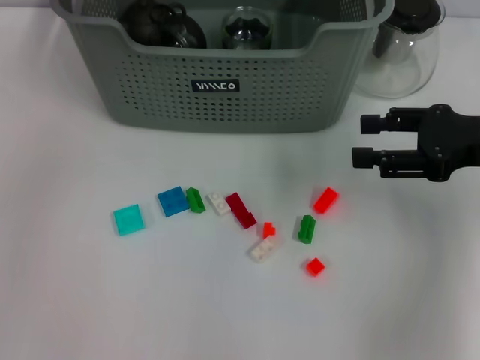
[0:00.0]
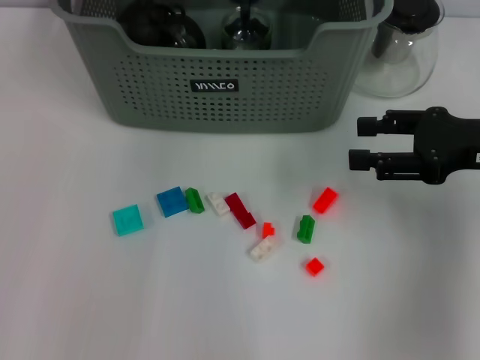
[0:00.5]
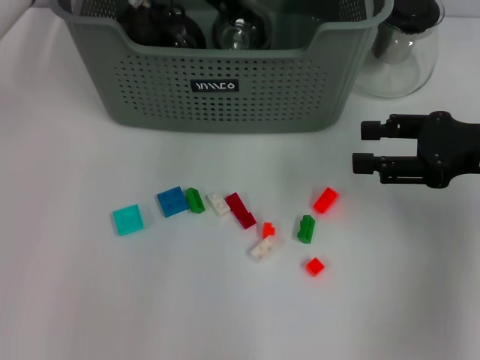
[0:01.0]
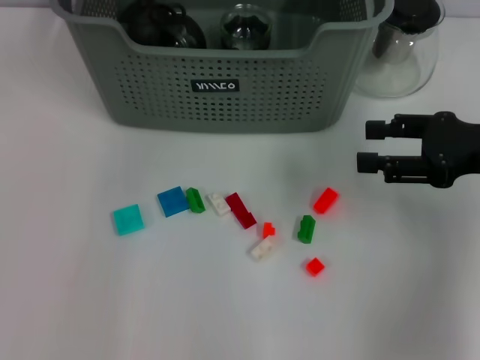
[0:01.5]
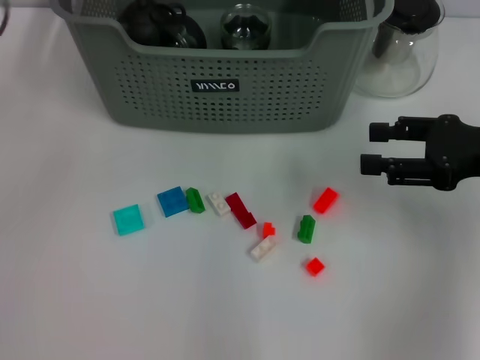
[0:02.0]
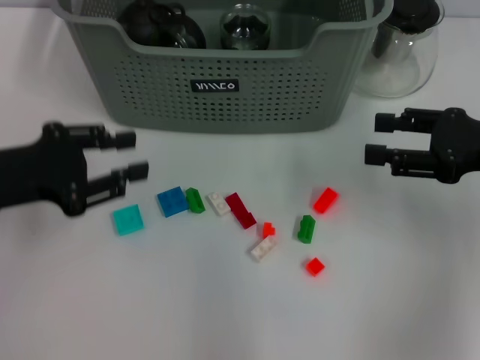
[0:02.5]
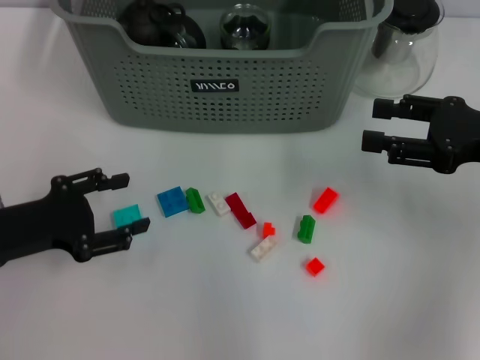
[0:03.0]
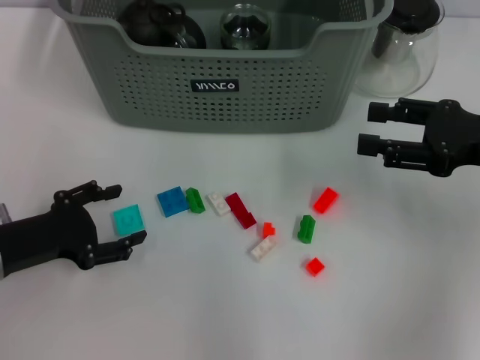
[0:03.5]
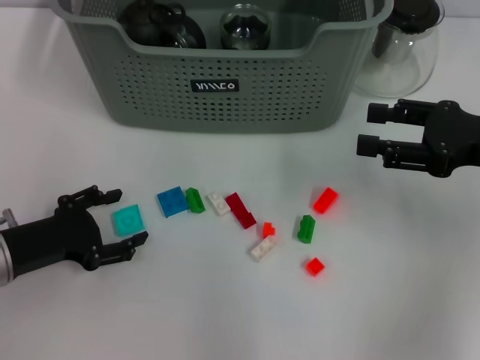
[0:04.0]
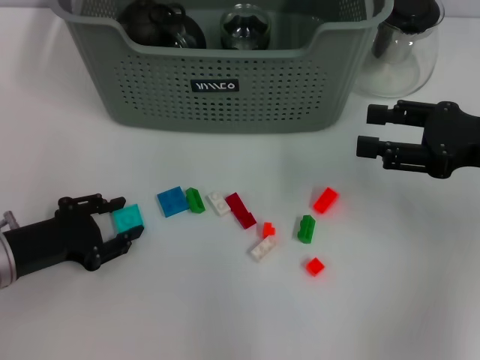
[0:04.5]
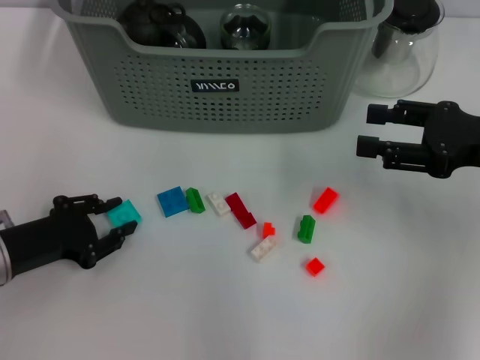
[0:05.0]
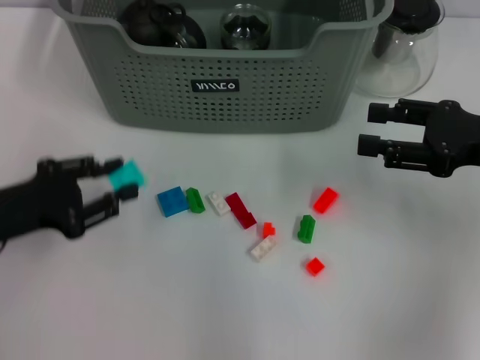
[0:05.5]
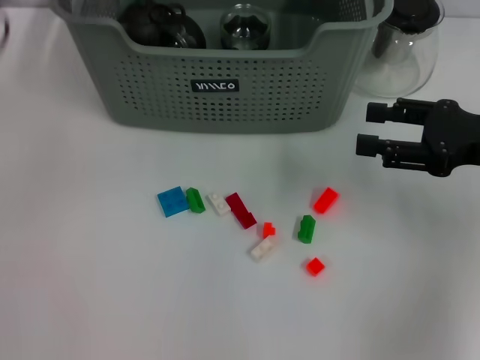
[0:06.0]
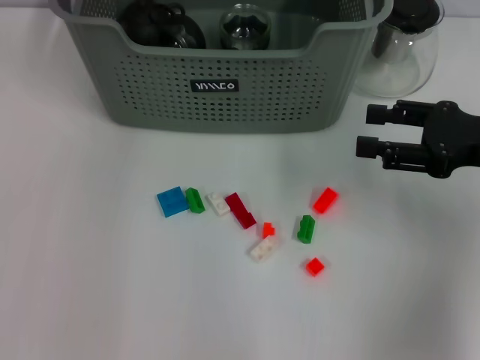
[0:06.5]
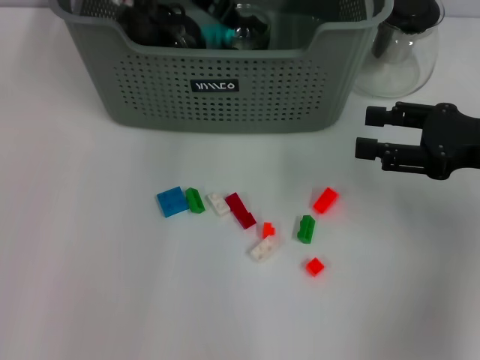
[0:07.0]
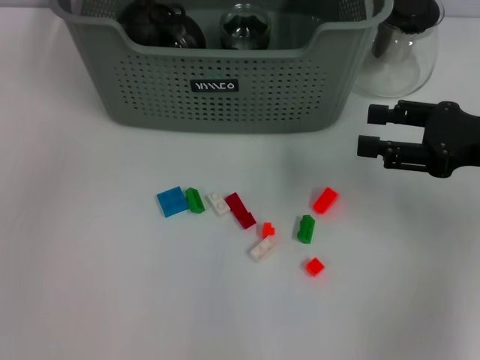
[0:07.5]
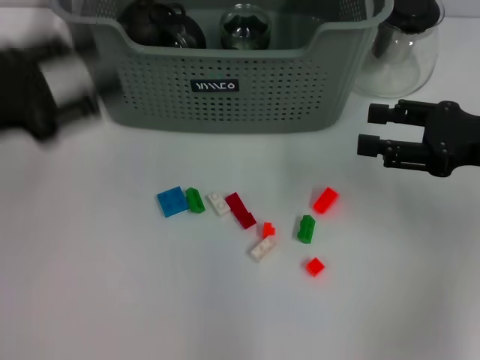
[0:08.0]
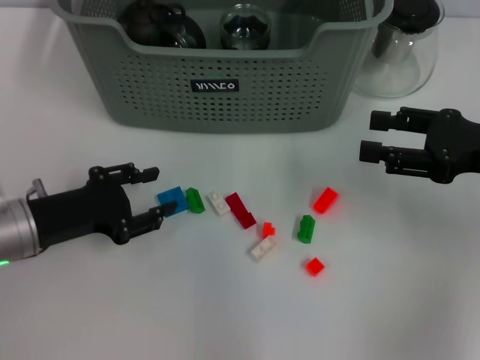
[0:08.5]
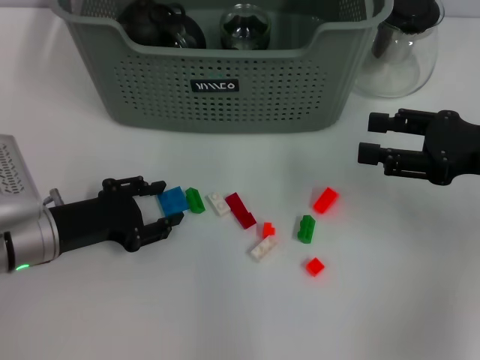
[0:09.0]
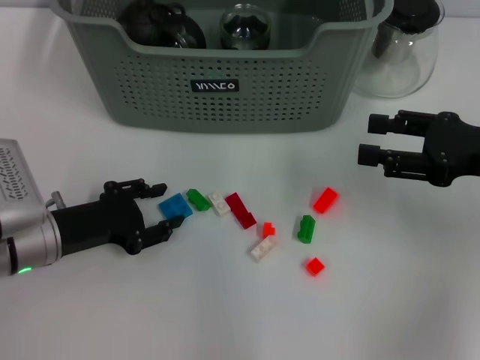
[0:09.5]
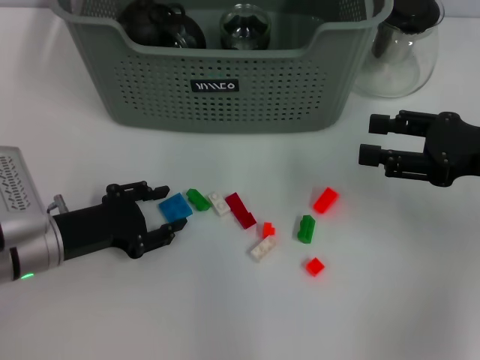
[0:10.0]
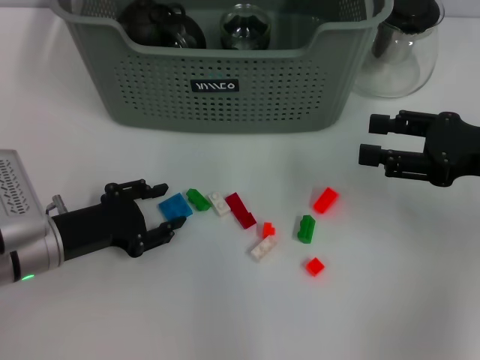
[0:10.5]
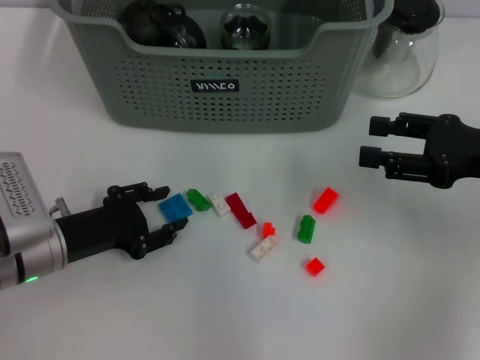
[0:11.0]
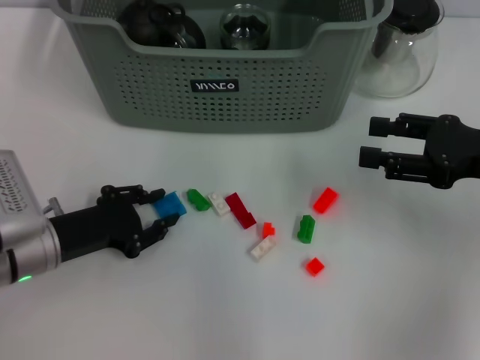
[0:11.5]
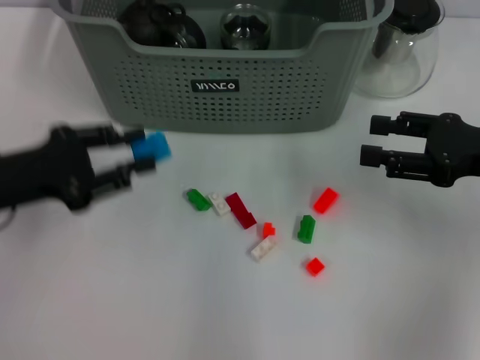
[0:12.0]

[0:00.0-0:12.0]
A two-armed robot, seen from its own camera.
Task of the whole recording: pick up the teacup on the table and place it into the storage bin, pick up the block on the table and place it into the storage bin.
Step, 0:01.5 to 0:05.0: Grasp the light blue block with left gripper.
Step, 0:05.5 to 0:07.0: Place the light blue block in the storage box with left gripper.
Step, 0:07.5 to 0:11.0: Grasp the dark blue block with left gripper.
0:02.0 to 0:04.0: The left gripper shifts roughly 25 cm downward and backward, and opens.
0:04.0 to 0:06.0: The left gripper heads upward and forward, covering roughly 20 cm, and closes.
0:06.0 to 0:08.0: The left gripper is displaced backward by about 10 cm, and moves approximately 20 cm to the right and comes back.
0:08.0 to 0:10.0: The left gripper travels downward by approximately 15 cm.
0:10.0 to 0:12.0: The left gripper travels upward by about 10 cm.

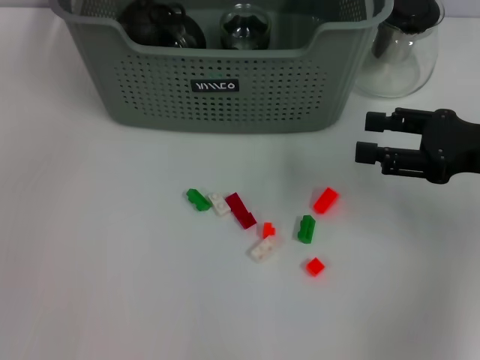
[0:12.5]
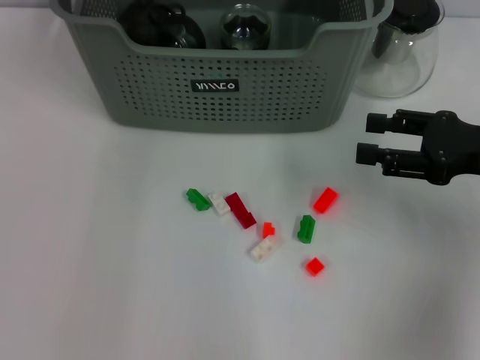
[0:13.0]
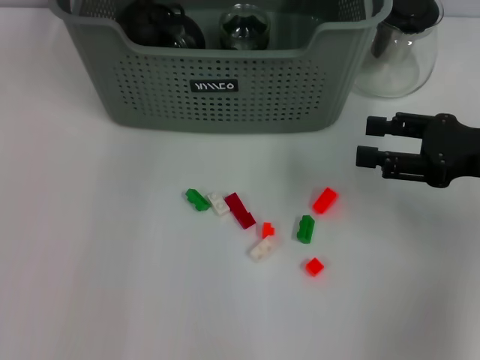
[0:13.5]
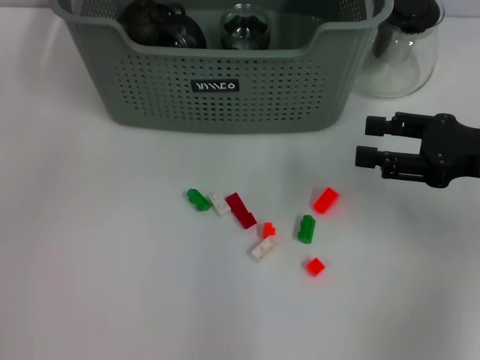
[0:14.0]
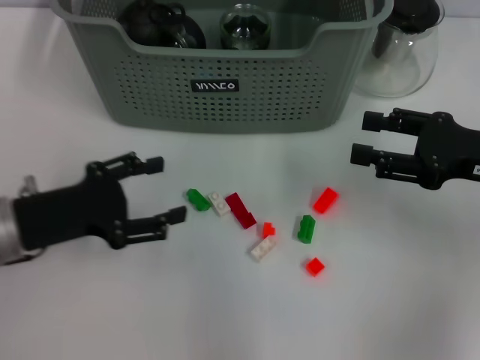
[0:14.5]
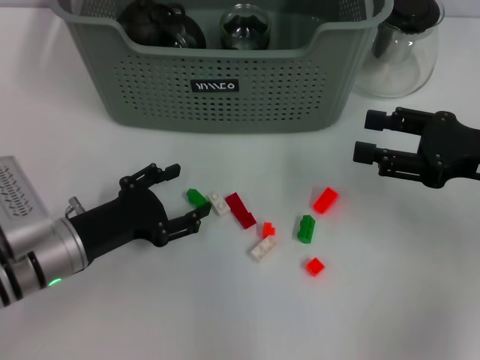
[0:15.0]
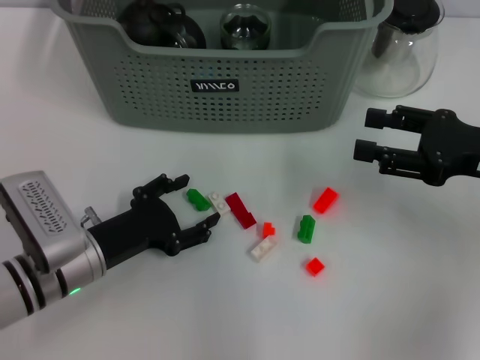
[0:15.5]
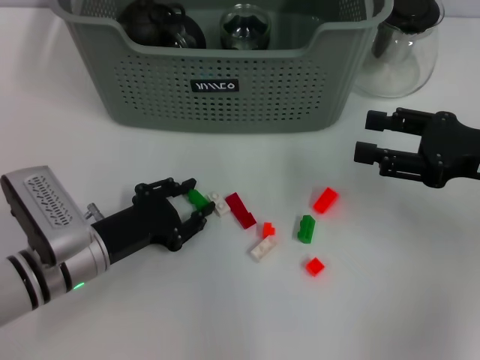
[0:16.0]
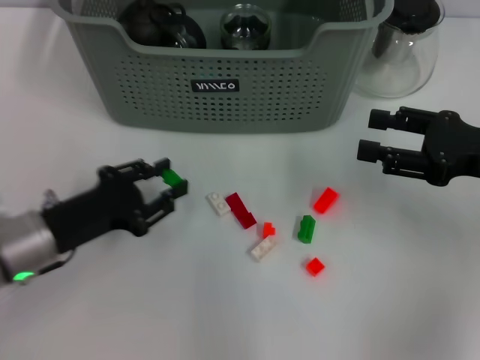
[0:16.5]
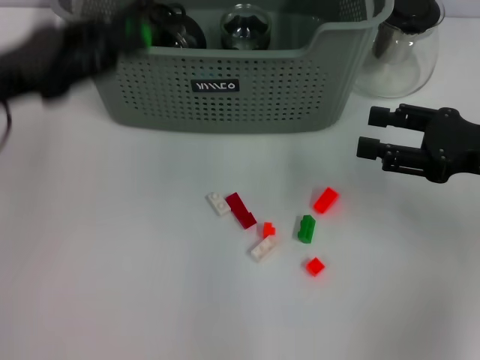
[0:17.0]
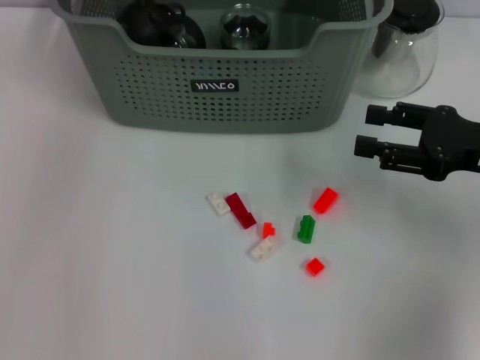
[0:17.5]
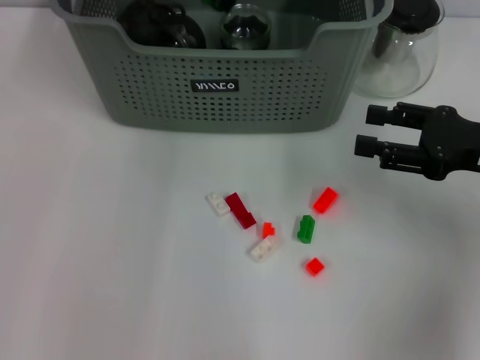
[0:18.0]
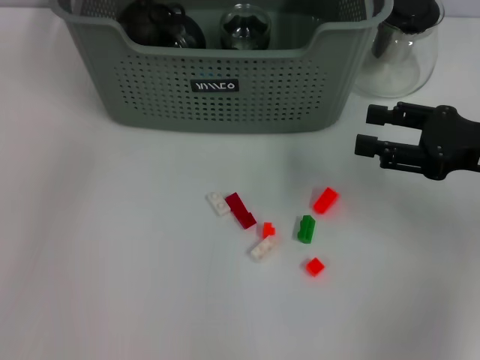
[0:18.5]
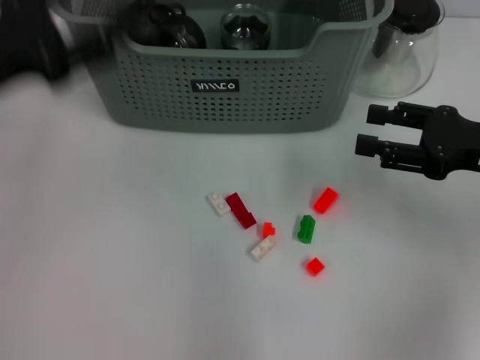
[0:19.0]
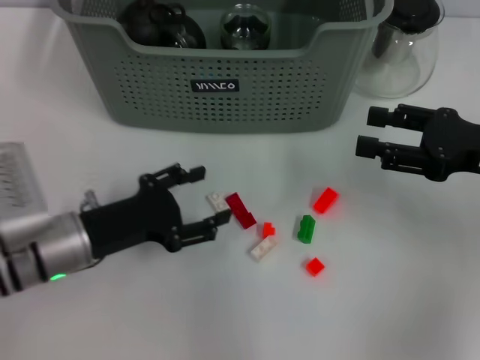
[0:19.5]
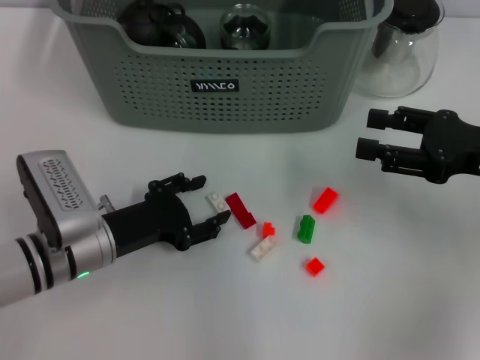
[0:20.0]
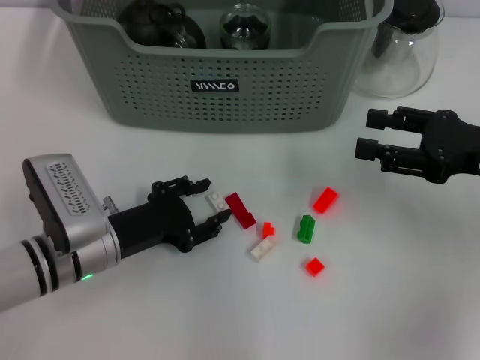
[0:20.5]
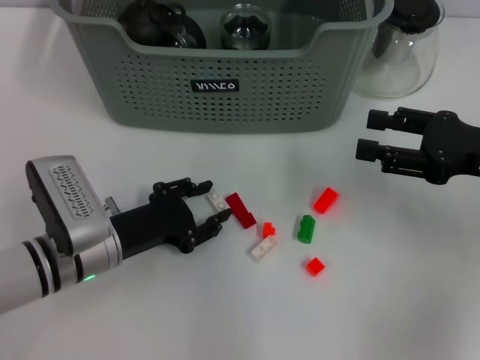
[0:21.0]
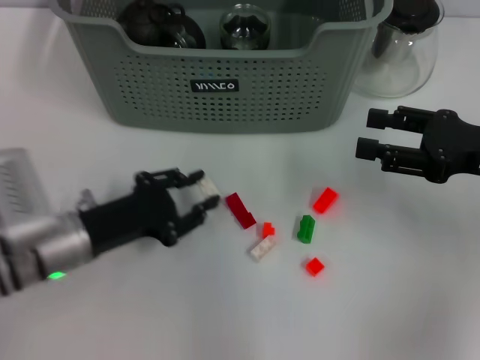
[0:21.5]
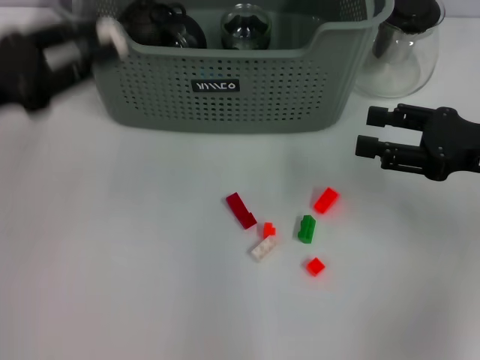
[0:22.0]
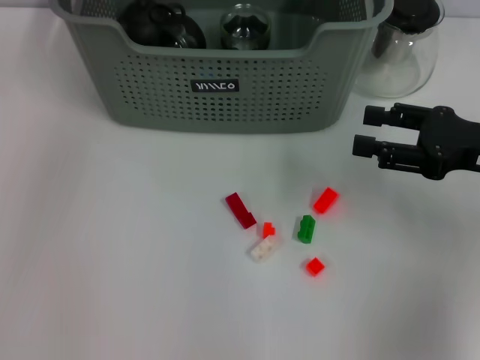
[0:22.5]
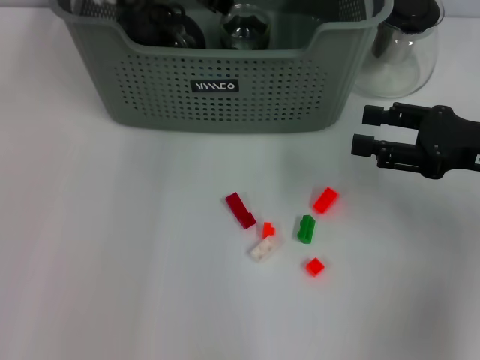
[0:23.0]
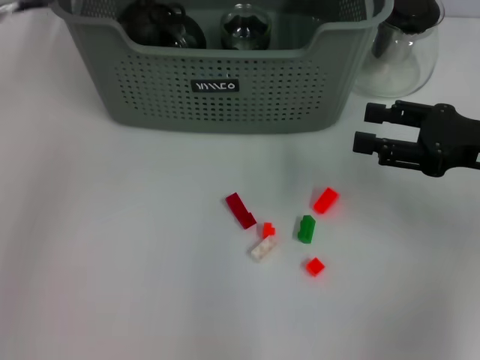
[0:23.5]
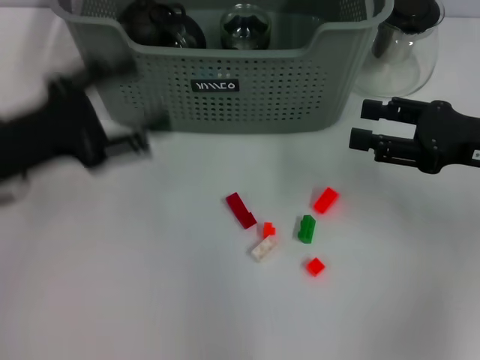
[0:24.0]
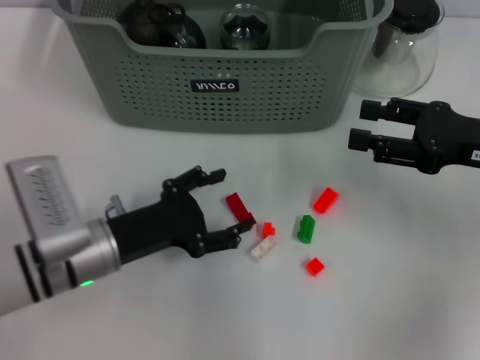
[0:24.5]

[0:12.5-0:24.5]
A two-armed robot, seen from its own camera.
Task of the whole recording: pick up the teacup on the table and place it into the storage bin, pick up the block on the table and place it into the storage bin.
Step, 0:14.0 to 0:16.0: Grasp the green block with left gripper.
Step, 0:16.5 to 0:18.0: Place the green block in the storage box with left gripper.
Step, 0:18.5 to 0:21.0: Grasp the white block with left gripper.
Step, 0:21.5 to 0:23.0: Place the white block in the storage box with left gripper.
0:12.5 to 0:14.5: The left gripper heads downward and backward, covering approximately 25 cm, and opens.
0:14.5 to 0:16.5: The left gripper closes its fingers.
0:16.5 to 0:18.5: The left gripper shifts about 30 cm upward and forward.
0:18.5 to 0:20.5: The left gripper goes approximately 30 cm downward and backward.
0:20.5 to 0:22.5: The left gripper moves upward and forward, approximately 30 cm.
0:22.5 to 0:24.5: The left gripper heads downward and backward, covering some 30 cm, and opens its fingers.

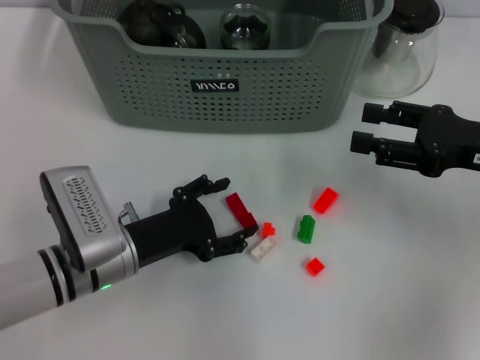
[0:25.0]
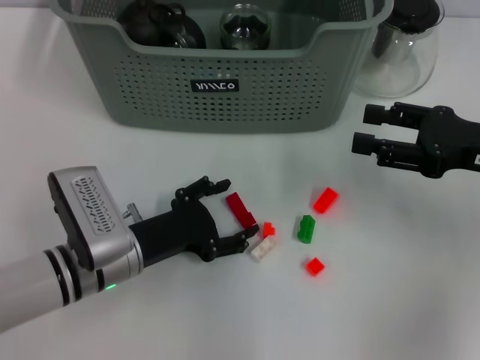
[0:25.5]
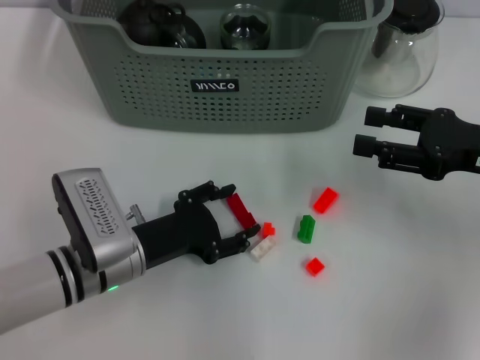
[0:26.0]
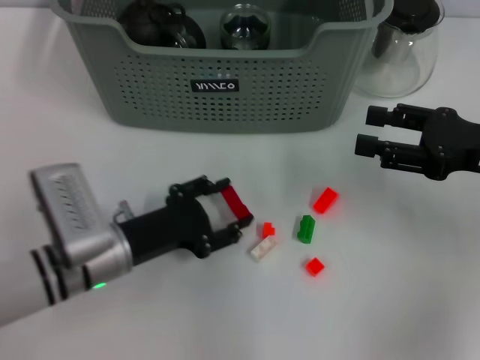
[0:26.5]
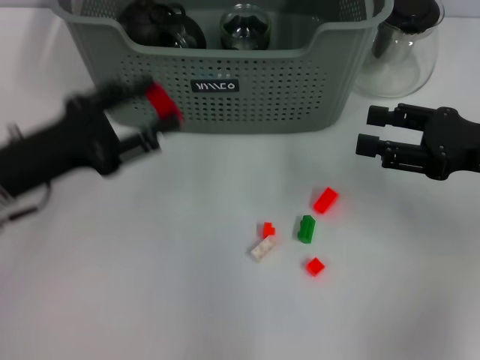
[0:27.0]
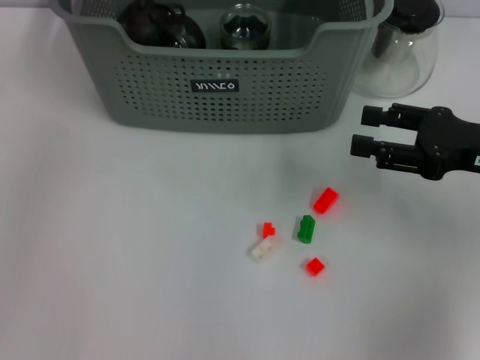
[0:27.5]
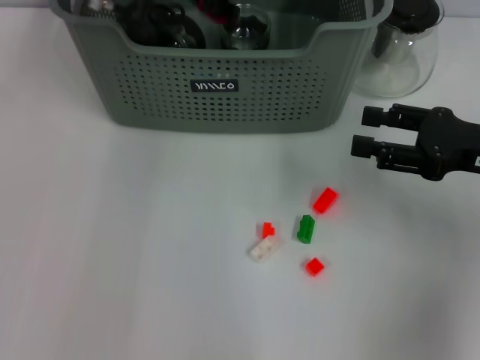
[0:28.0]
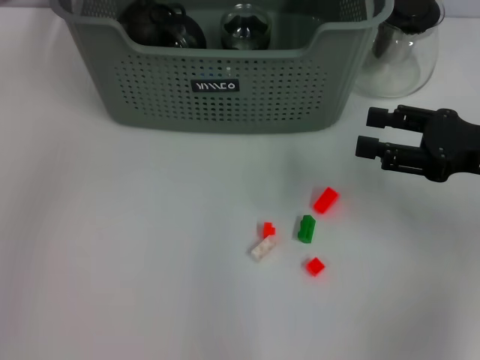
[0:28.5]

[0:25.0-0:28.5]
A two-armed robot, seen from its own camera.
Task of the whole recording: pick up the teacup on the table and place it into the storage bin, pick up the block on the table and place it into the storage bin.
Step, 0:26.5 to 0:28.0: Place the red block in the storage box with left gripper.
0:25.0 to 0:27.0: The left gripper travels upward and to the left by about 15 cm.
0:27.0 to 0:28.5: The left gripper goes approximately 20 cm upward and forward.
